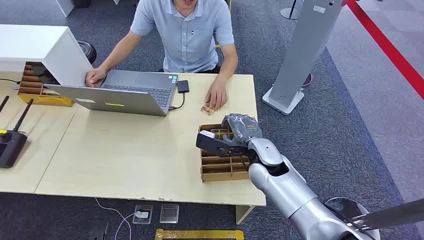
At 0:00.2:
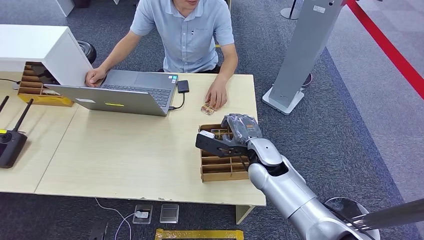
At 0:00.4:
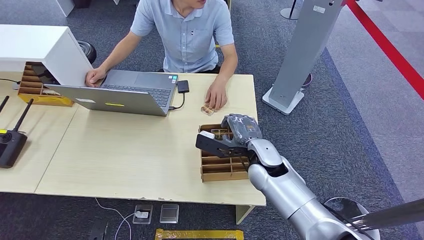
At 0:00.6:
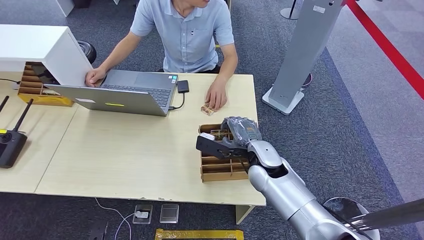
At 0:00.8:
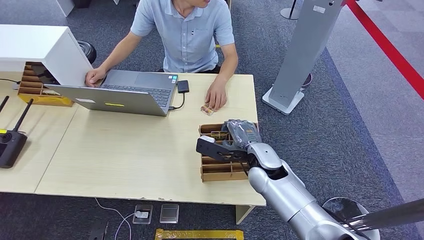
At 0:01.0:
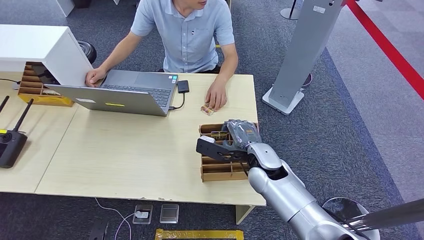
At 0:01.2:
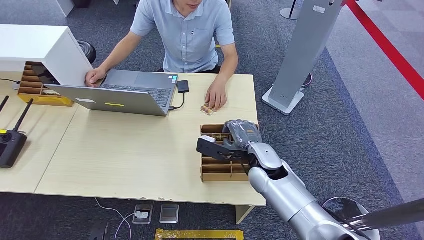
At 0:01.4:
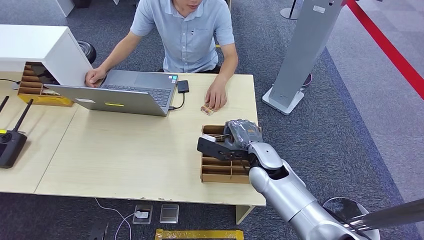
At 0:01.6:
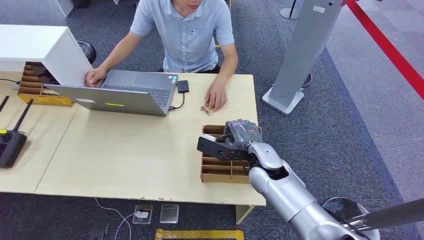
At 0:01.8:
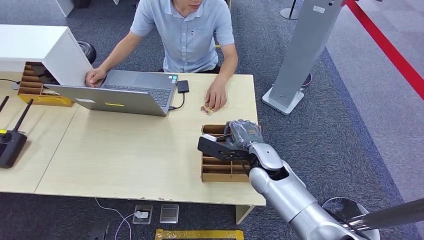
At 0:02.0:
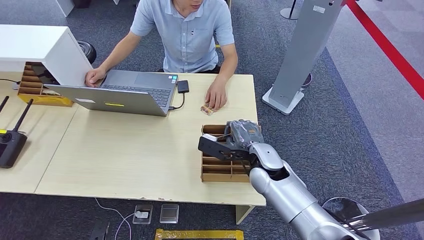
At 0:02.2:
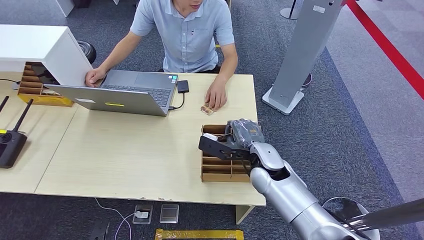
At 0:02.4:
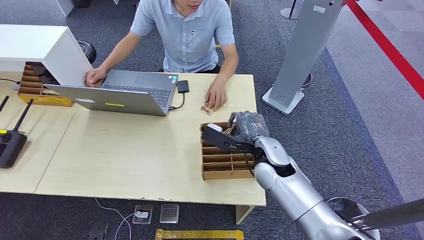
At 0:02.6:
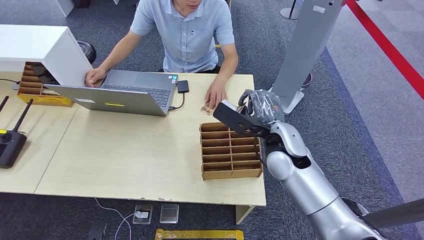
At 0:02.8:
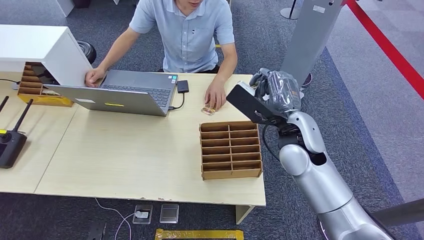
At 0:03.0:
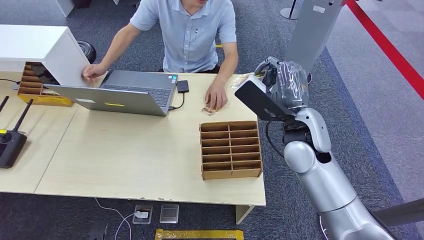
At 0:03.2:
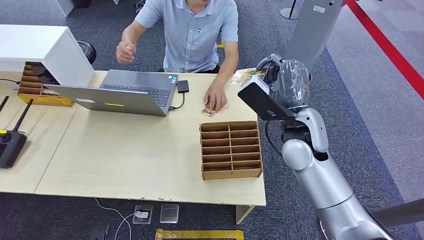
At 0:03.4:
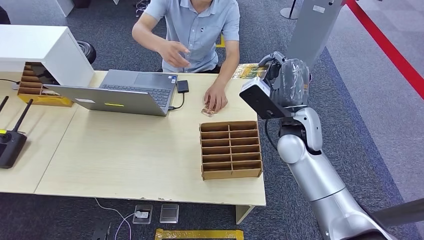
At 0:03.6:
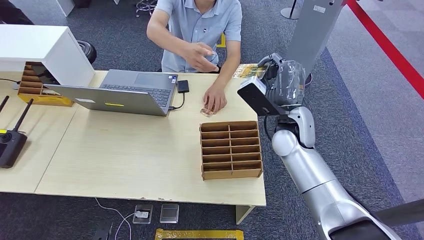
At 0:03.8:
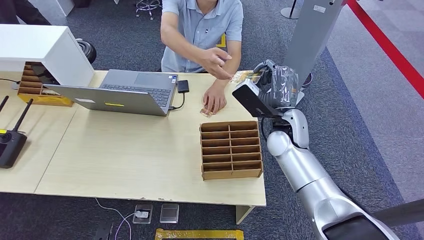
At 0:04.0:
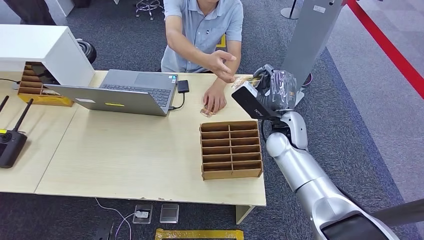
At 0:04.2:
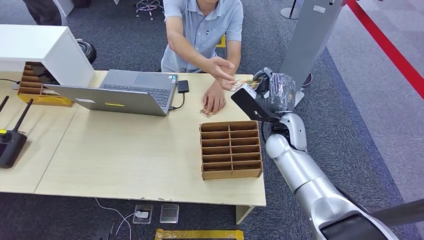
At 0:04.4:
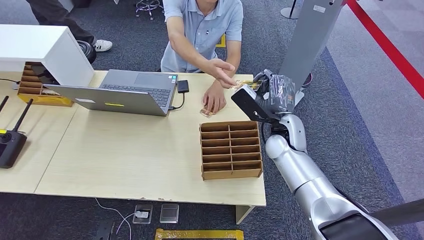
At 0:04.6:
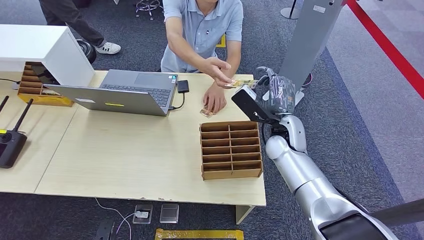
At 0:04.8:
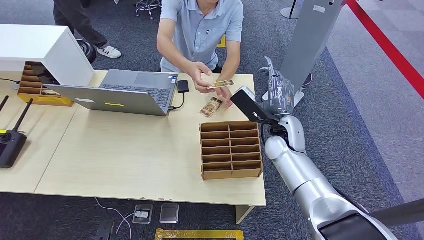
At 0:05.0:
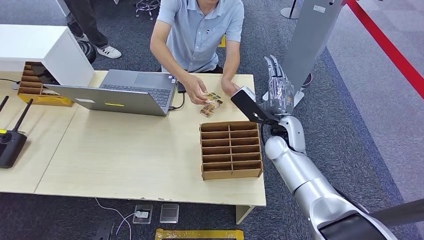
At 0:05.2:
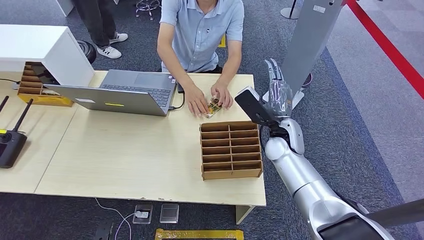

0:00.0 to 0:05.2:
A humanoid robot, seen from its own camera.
Step, 0:00.0 to 0:02.6: Pick up the key card from the card box.
Step, 0:03.6 to 0:05.2: Hand the key card to the target.
0:01.8 to 0:03.4: The right hand shifts approximately 10 cm upward.
0:03.4 to 0:05.2: The right hand is displaced downward by roughly 5 cm.
